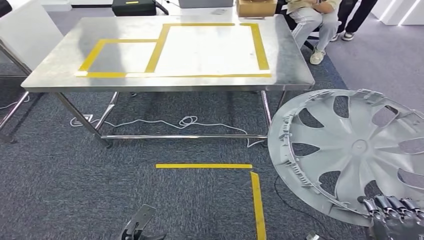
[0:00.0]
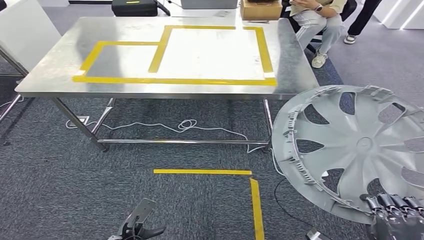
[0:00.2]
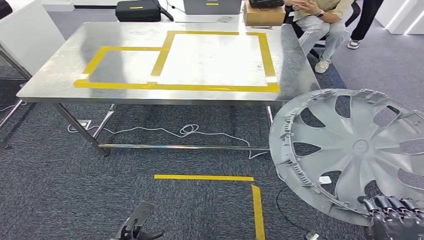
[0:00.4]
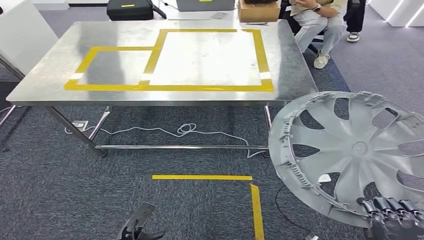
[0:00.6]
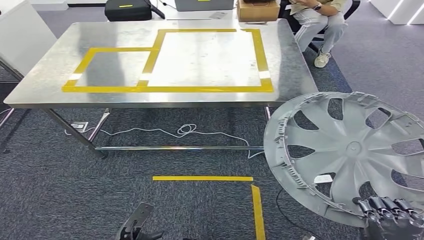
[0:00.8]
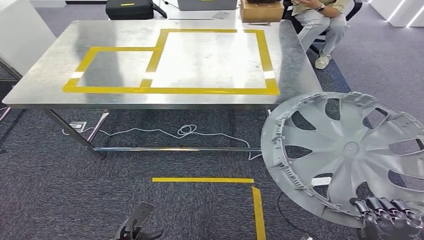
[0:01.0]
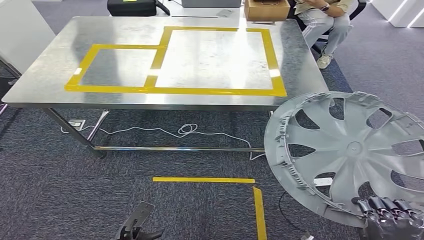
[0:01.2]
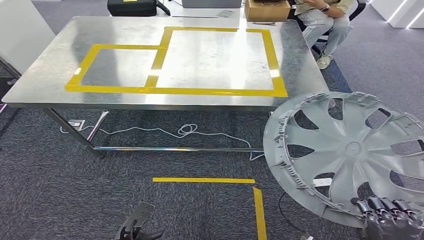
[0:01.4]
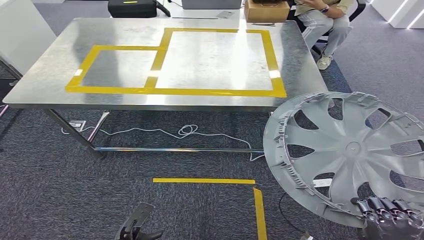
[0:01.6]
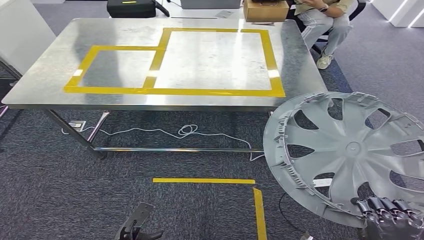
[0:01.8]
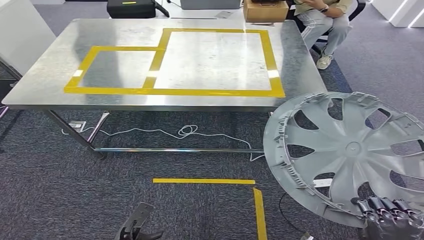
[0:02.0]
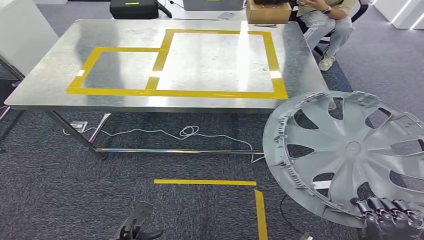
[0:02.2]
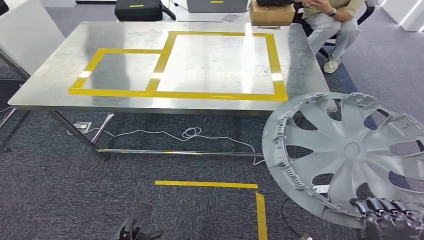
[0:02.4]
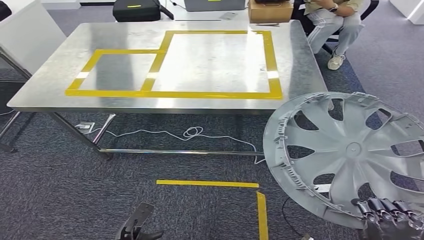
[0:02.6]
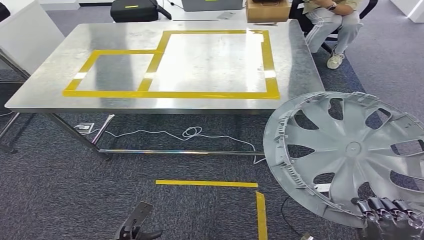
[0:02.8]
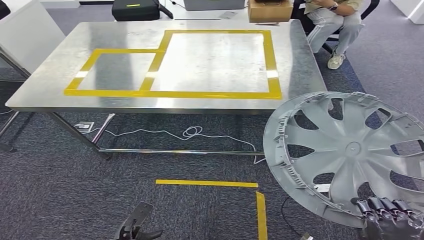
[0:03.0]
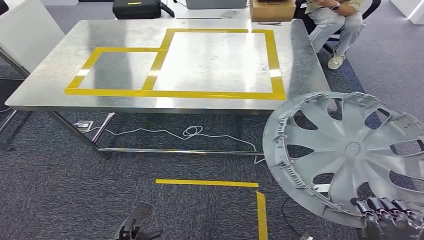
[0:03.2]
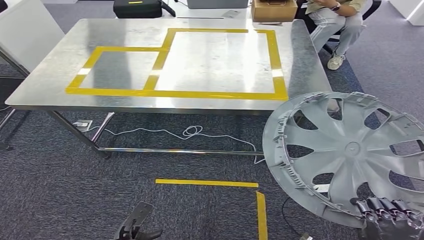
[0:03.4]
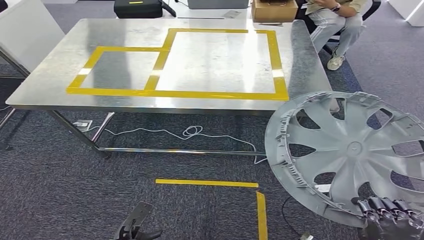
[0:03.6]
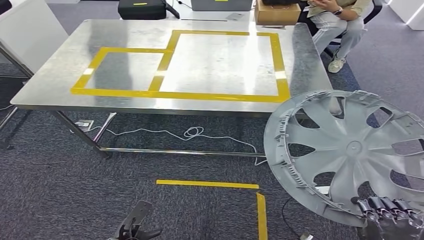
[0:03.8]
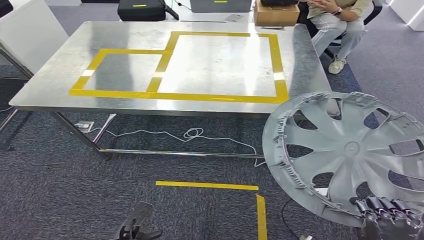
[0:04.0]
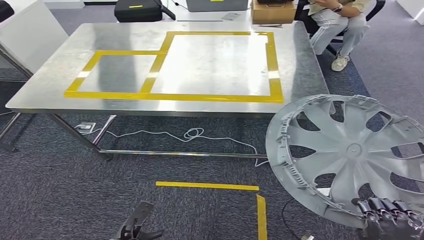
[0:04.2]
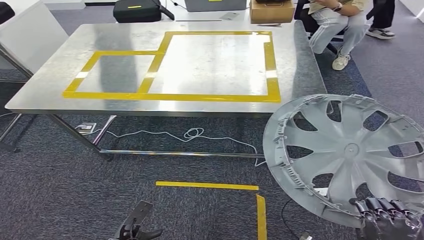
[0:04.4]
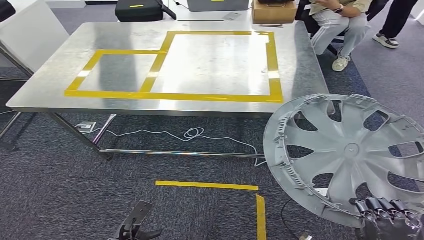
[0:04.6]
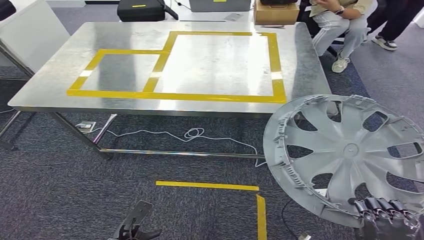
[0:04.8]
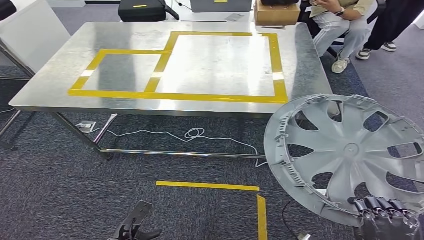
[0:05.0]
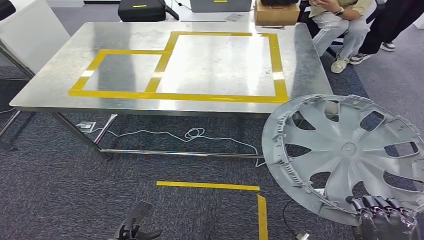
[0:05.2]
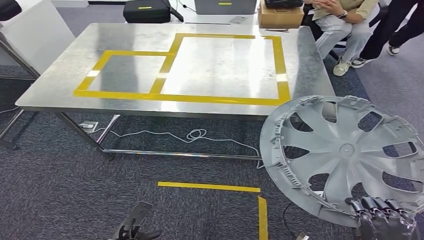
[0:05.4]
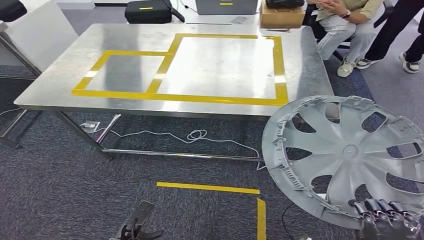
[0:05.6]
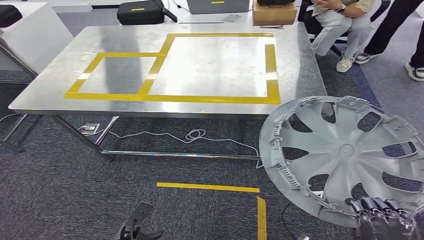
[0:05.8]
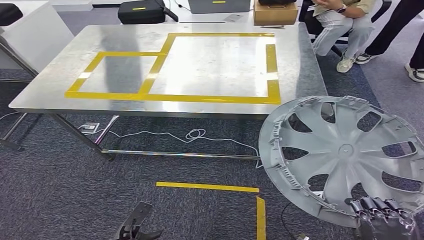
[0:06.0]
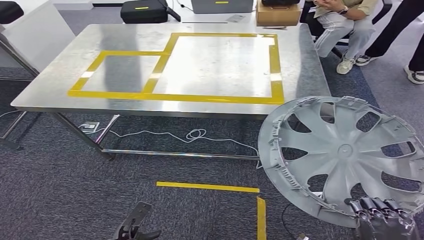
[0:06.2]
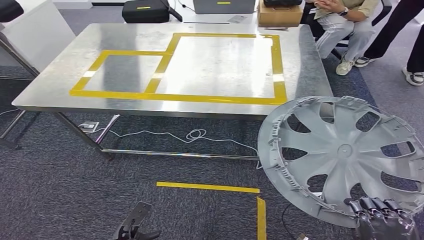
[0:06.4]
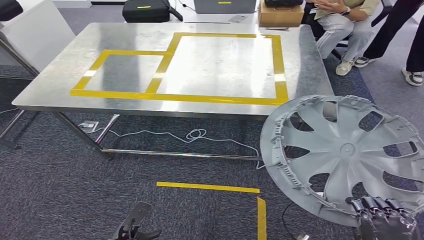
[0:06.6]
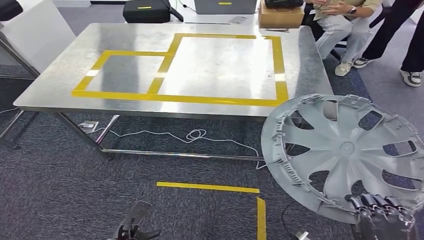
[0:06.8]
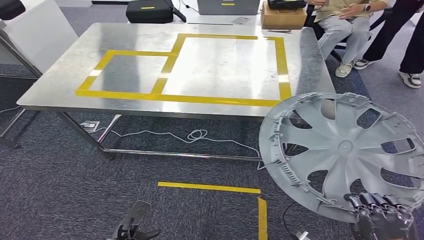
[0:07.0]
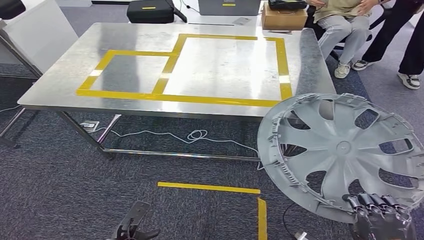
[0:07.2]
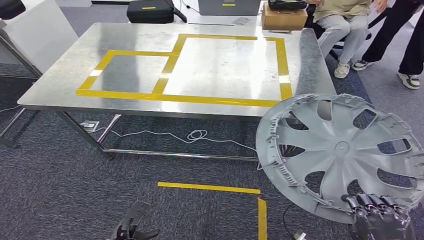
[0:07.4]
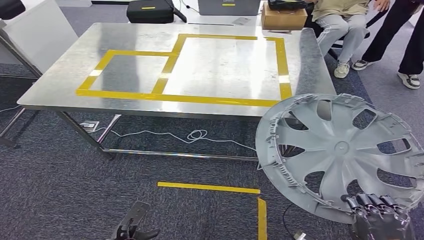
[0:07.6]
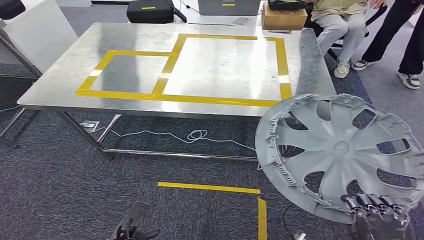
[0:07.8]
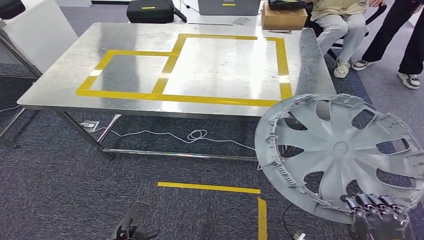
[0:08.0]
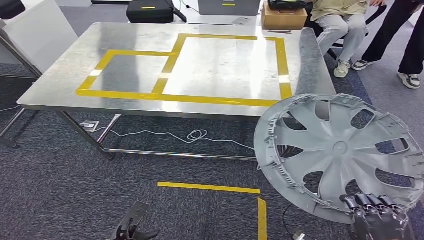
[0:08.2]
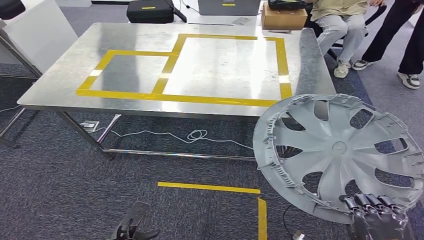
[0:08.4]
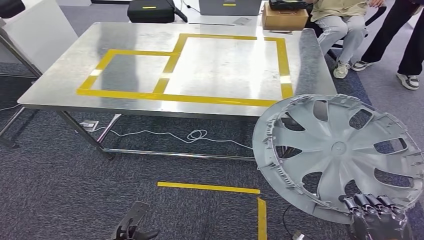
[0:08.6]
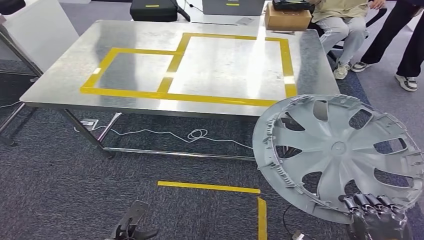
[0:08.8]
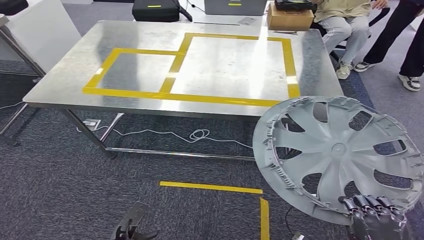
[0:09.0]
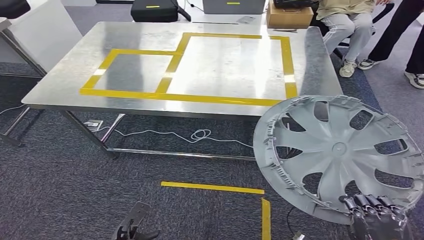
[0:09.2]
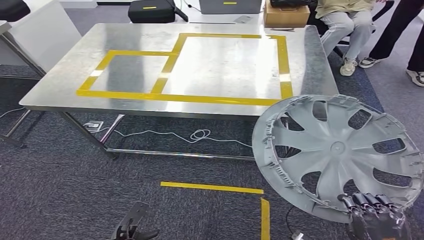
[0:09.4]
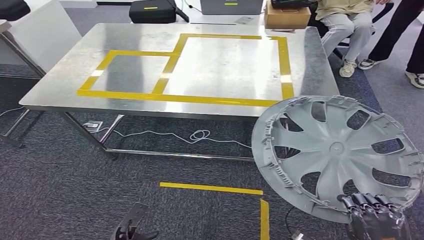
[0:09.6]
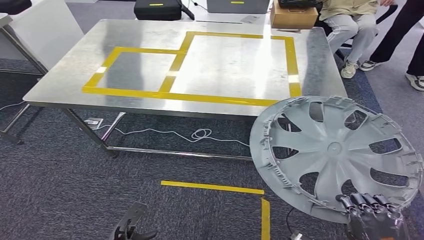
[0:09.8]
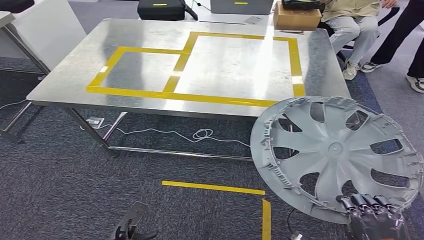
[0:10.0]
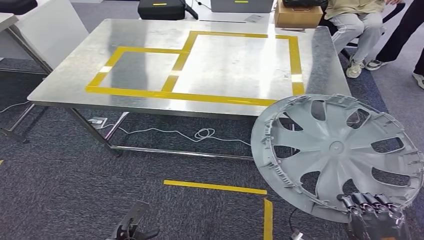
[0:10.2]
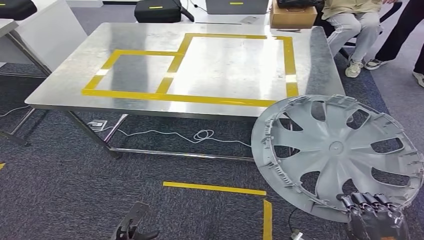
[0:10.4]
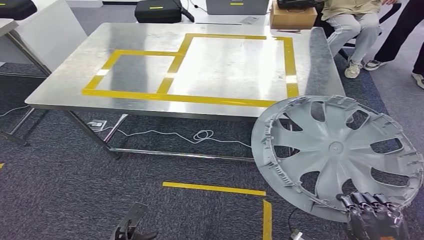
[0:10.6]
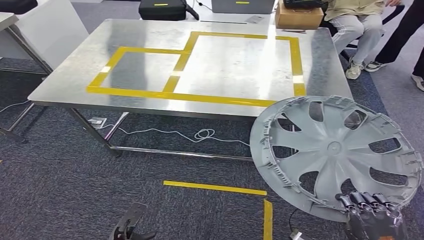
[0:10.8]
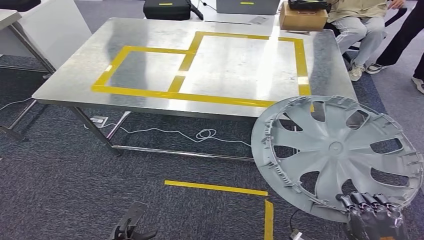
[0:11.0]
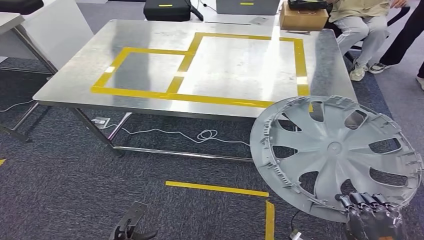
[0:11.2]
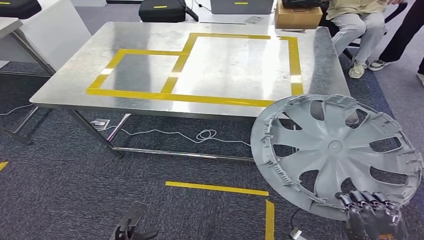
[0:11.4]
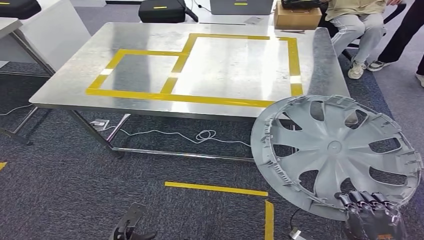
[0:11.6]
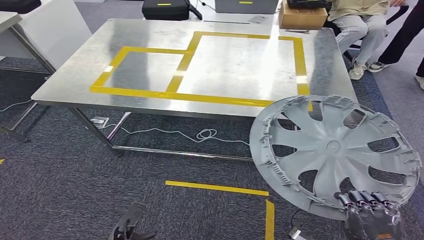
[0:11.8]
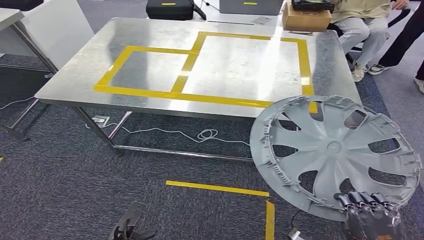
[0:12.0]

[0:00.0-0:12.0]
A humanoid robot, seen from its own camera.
0:01.6 to 0:04.4: Neither hand changes place.
0:07.6 to 0:09.0: Both hands stay about where they are.

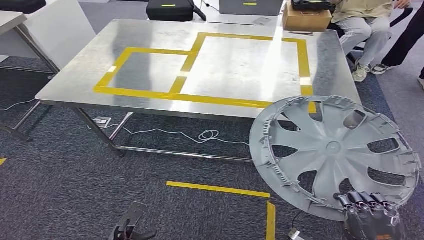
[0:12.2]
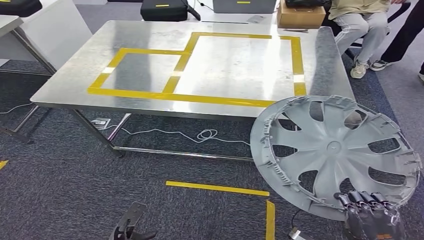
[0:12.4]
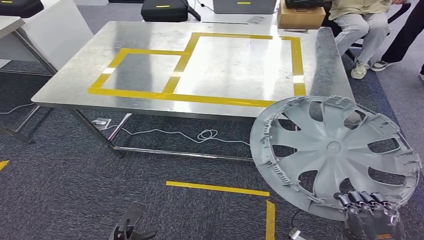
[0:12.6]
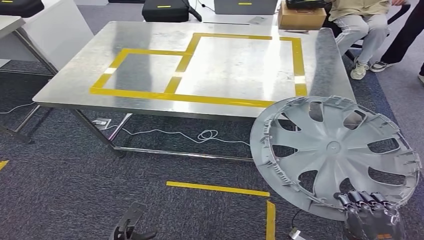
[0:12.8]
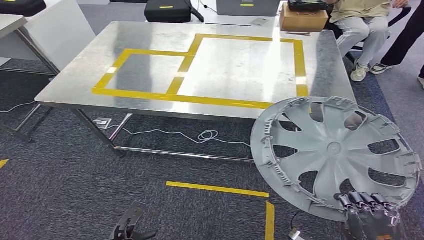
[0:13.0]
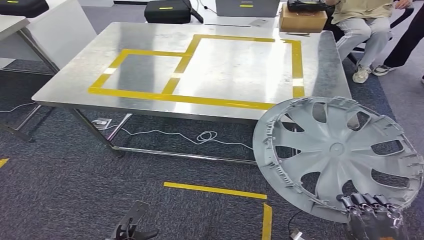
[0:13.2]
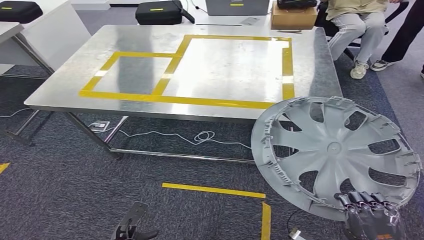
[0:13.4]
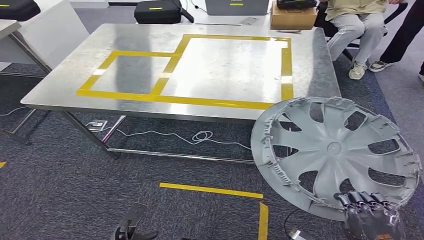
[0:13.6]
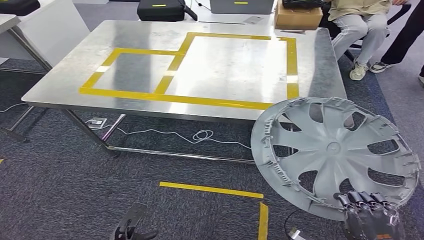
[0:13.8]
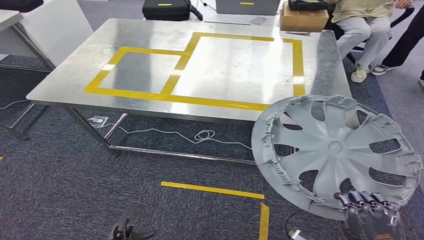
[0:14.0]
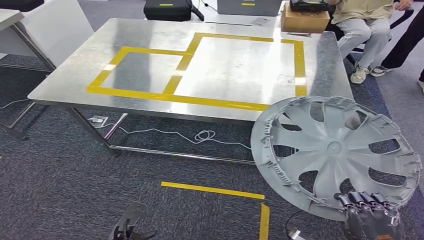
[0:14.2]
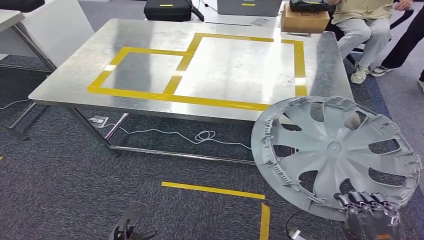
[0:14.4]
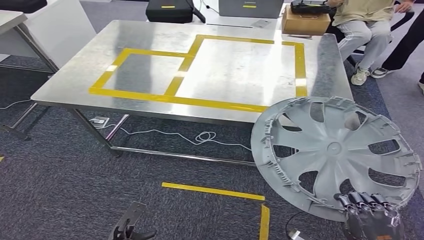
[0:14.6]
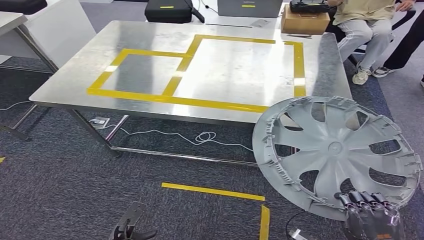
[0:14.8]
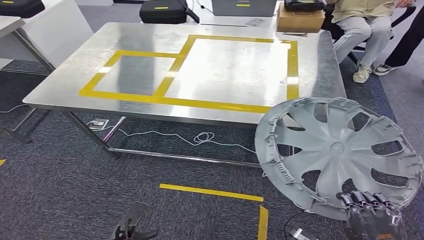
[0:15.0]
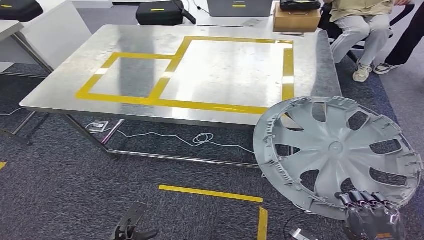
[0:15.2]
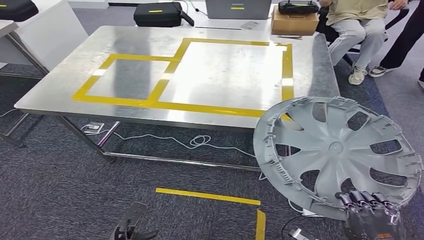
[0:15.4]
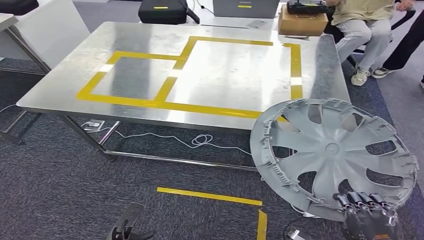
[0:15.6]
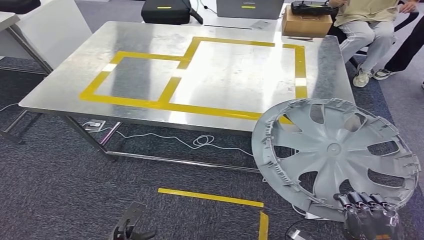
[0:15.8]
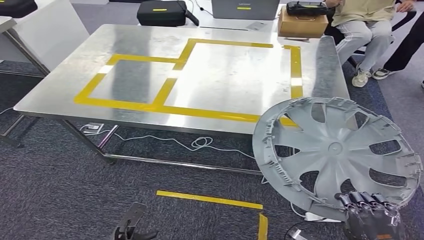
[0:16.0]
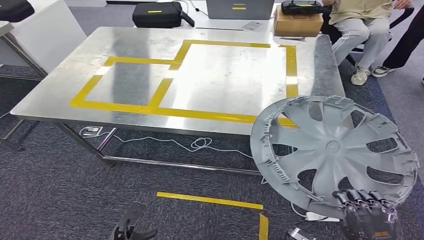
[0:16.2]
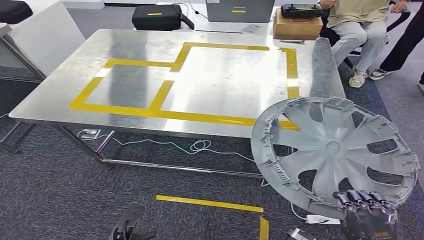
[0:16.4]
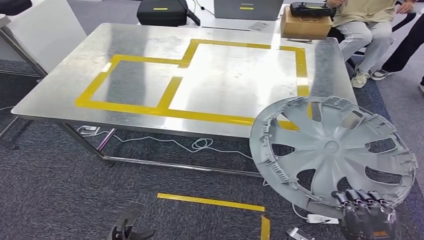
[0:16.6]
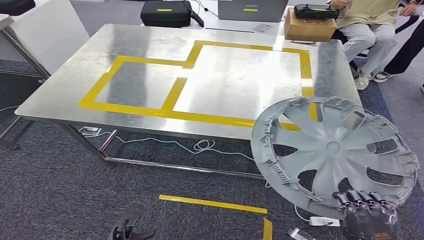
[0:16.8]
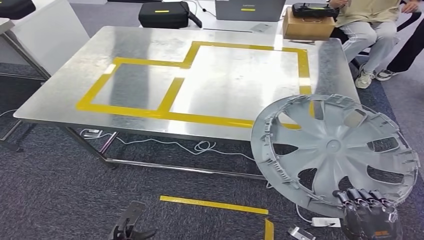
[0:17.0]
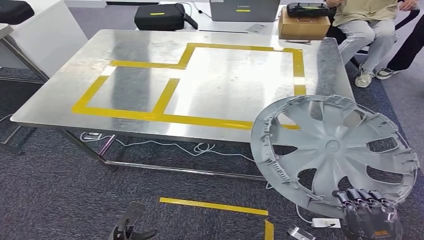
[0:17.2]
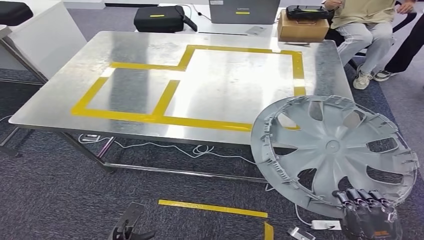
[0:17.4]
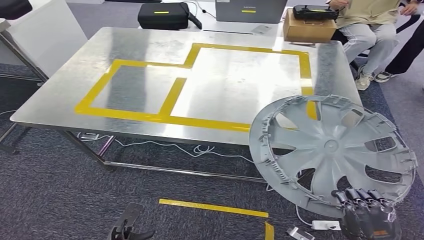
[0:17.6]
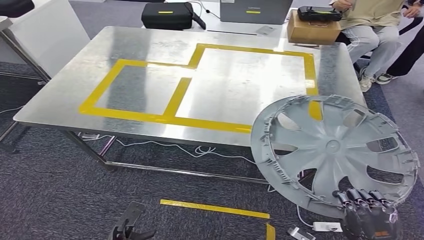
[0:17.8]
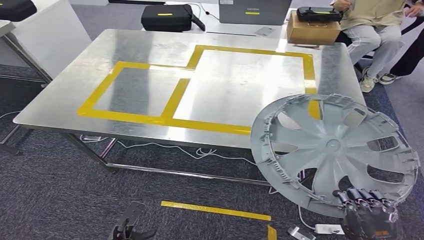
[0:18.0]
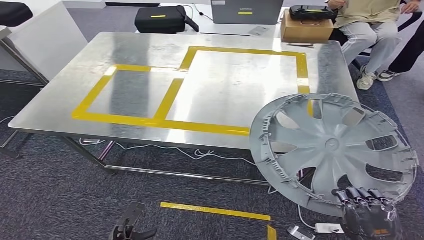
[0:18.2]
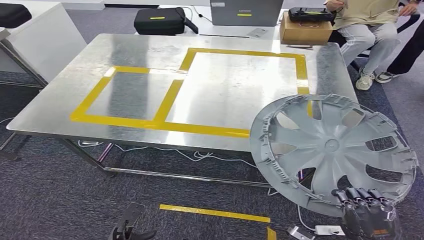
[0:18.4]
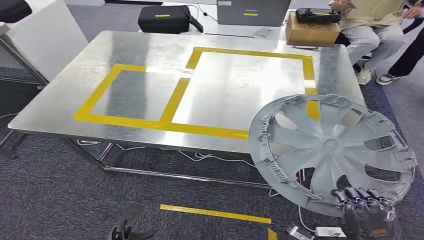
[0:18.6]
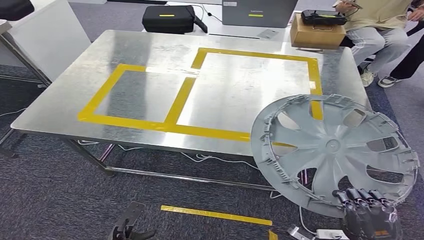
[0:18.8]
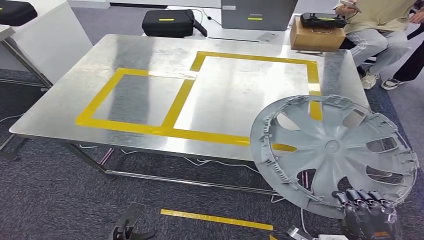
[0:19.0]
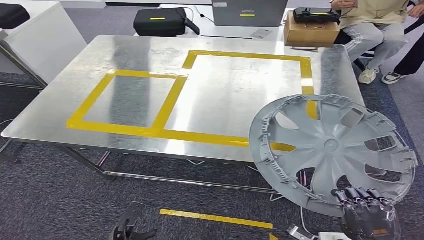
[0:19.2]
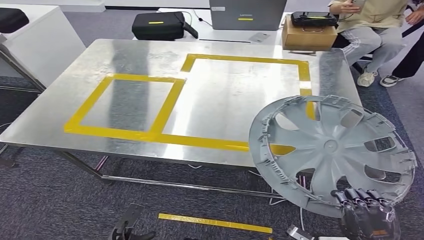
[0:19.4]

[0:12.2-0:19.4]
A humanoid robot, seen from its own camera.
0:13.6 to 0:15.0: Both hands stay about where they are.
